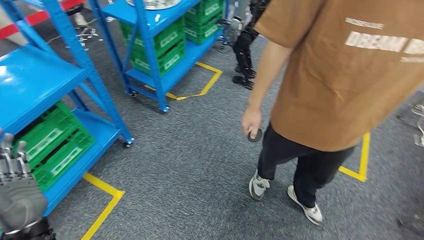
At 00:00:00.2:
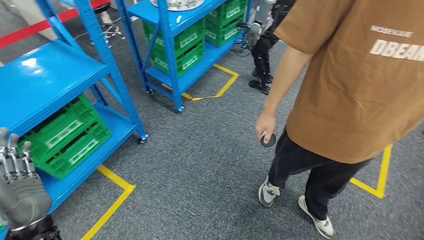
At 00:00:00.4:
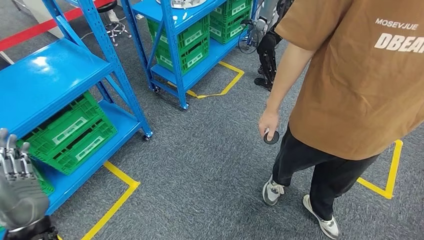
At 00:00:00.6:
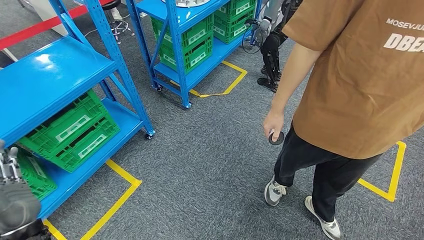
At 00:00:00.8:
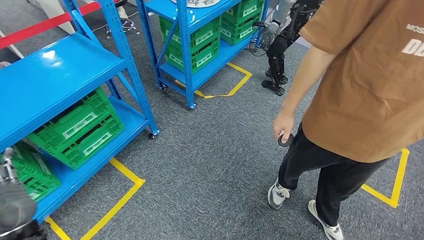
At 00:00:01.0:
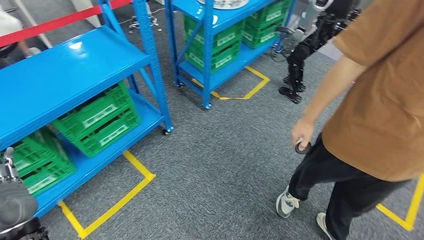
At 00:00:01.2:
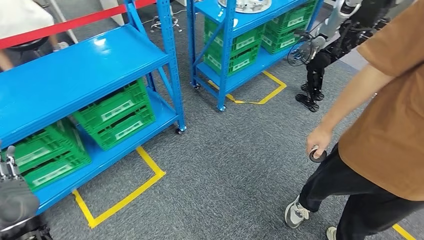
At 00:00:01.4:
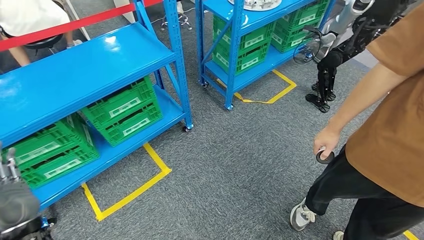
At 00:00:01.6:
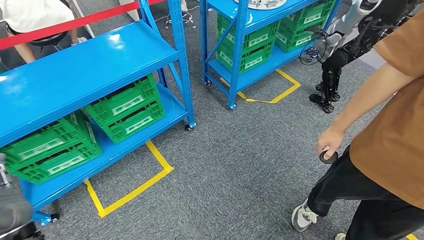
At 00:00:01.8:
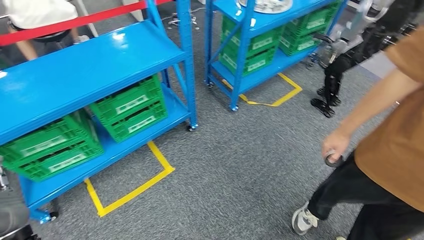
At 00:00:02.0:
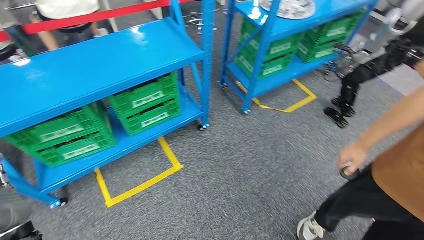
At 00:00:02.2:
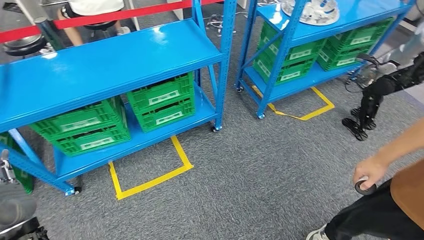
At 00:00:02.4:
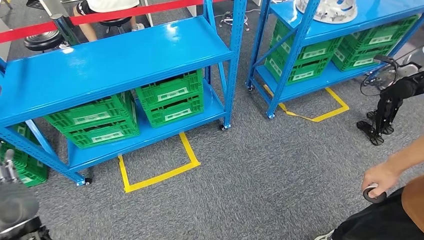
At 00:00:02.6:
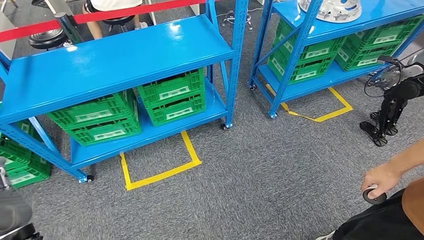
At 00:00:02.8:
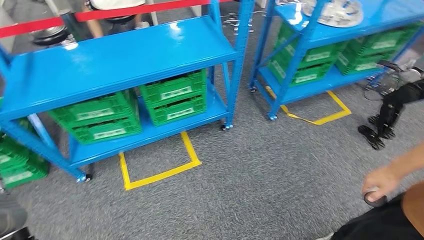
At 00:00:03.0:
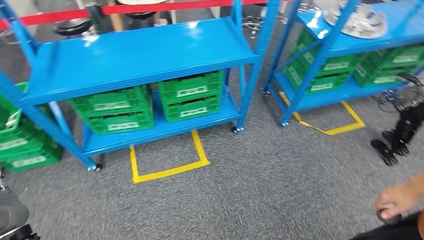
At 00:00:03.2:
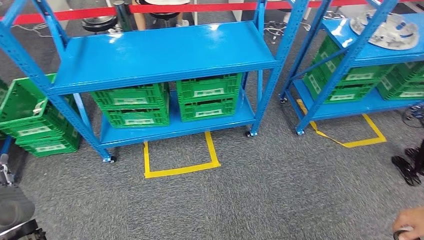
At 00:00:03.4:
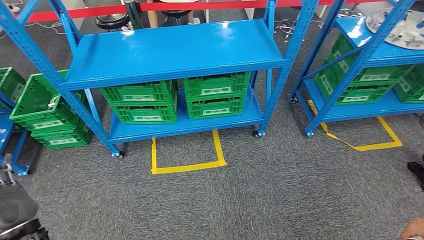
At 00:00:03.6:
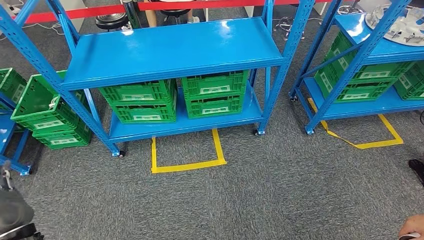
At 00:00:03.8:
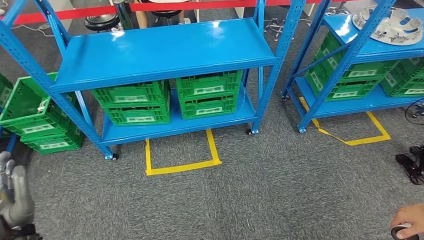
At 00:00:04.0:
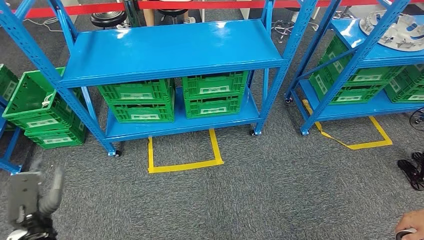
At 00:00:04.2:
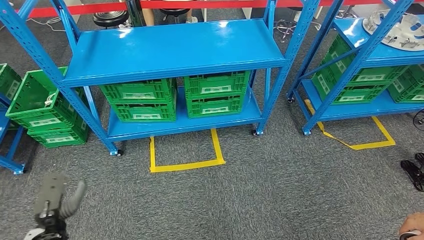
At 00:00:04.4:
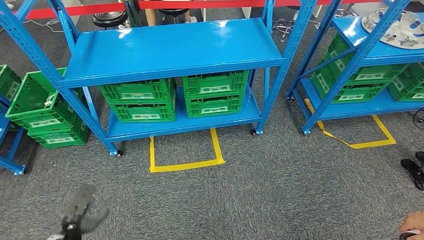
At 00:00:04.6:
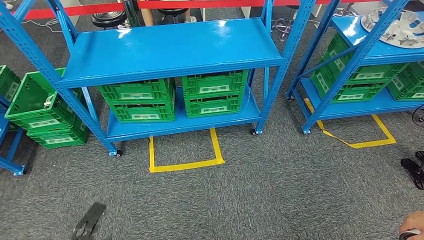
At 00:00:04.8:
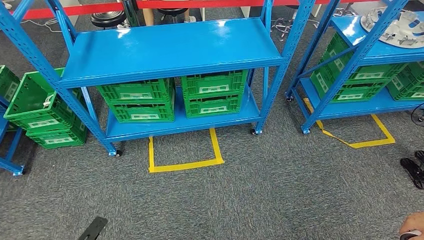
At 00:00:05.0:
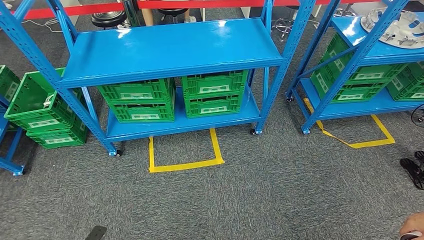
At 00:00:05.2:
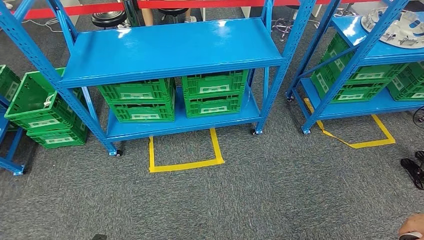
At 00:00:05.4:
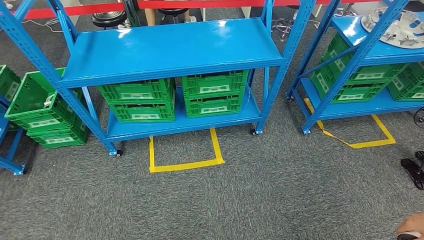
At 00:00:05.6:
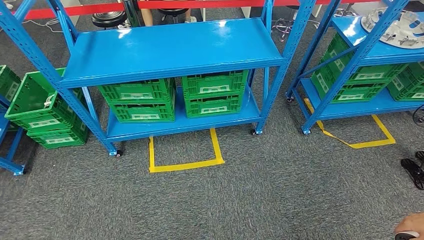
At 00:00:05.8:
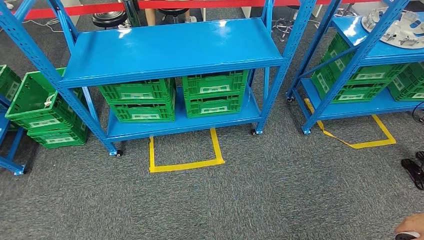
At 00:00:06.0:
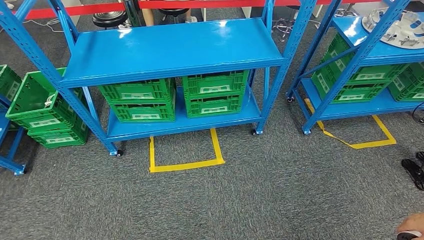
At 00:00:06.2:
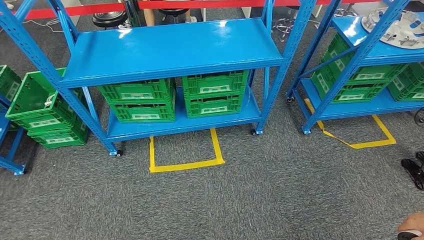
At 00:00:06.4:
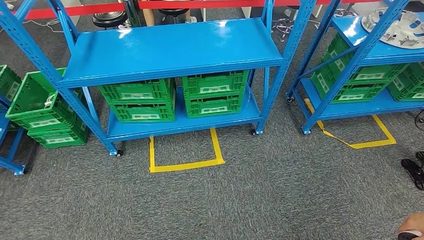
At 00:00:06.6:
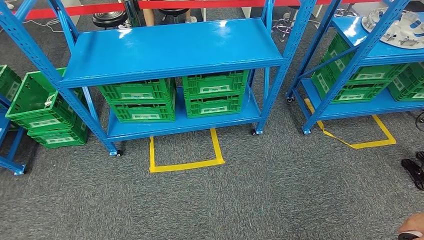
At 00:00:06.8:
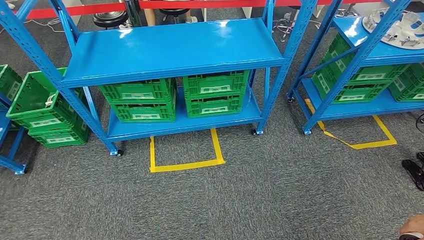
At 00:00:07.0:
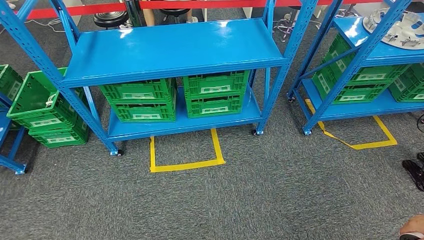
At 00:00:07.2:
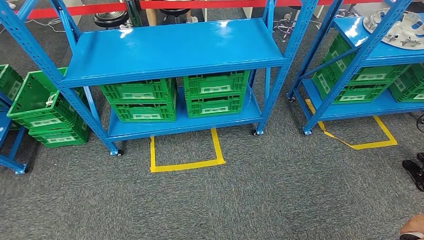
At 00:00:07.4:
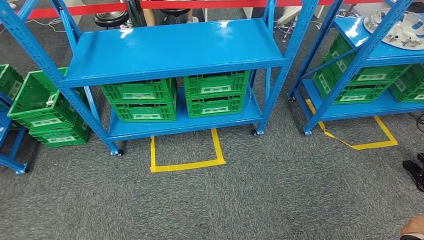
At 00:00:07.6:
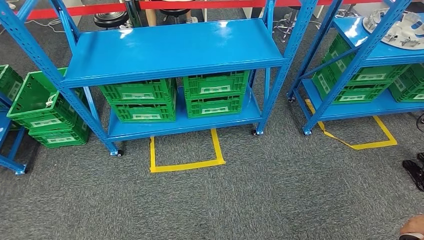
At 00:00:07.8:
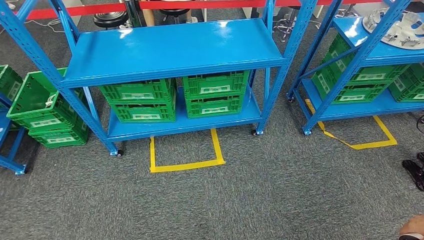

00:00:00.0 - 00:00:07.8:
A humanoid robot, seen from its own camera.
Step, 00:00:00.0 - 00:00:07.8: Return to the initial position at the workbench.
00:00:04.6 - 00:00:06.2: The left hand is displaced backward and downward by about 15 cm.
00:00:06.2 - 00:00:07.8: Both hands move backward, some 5 cm.
